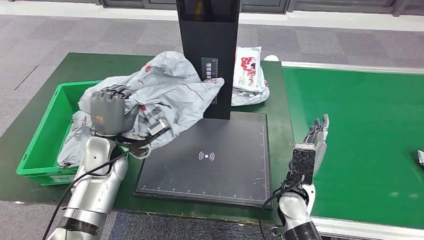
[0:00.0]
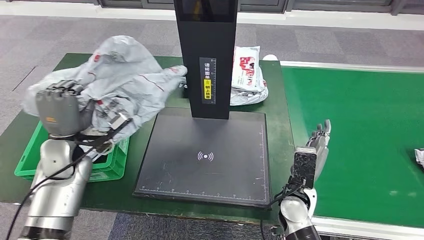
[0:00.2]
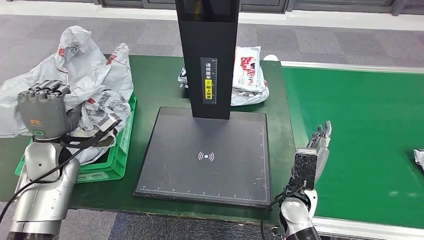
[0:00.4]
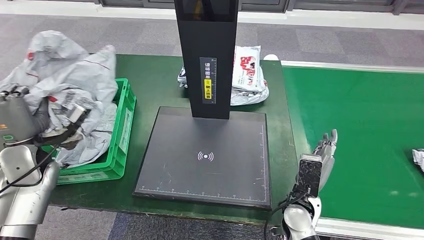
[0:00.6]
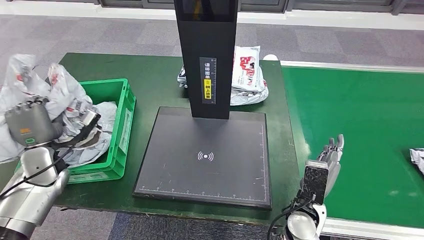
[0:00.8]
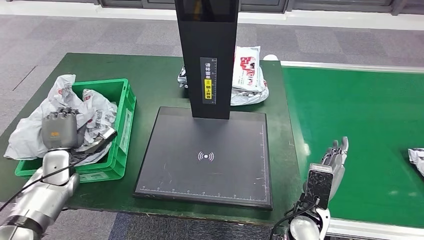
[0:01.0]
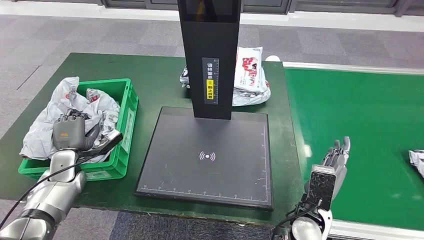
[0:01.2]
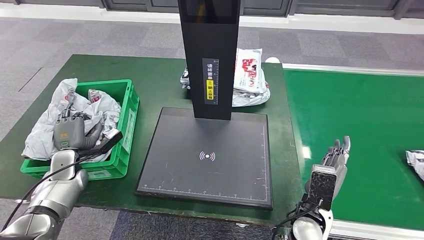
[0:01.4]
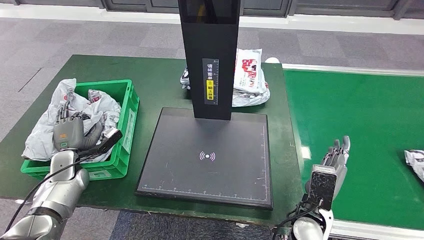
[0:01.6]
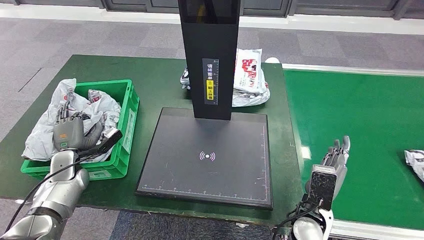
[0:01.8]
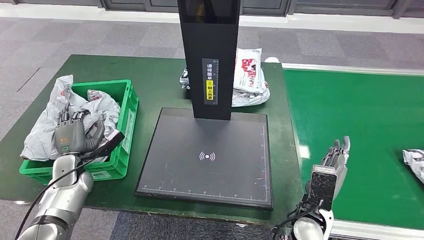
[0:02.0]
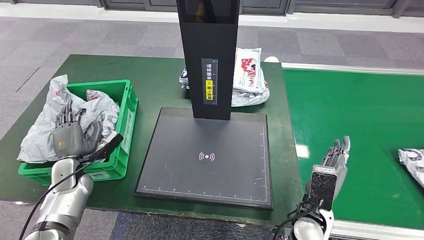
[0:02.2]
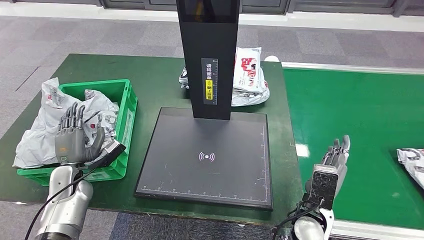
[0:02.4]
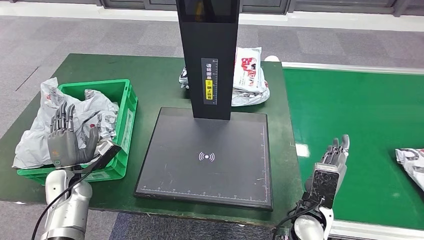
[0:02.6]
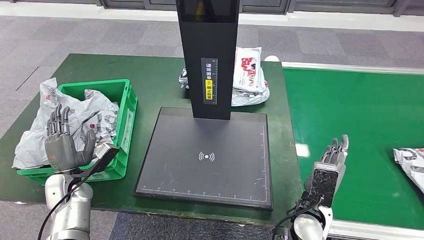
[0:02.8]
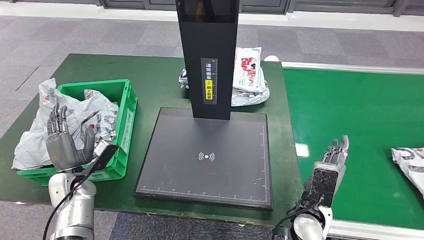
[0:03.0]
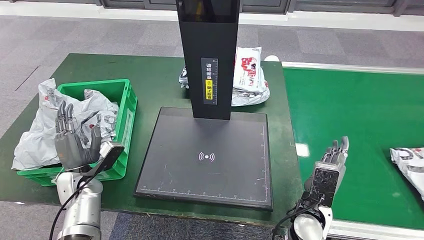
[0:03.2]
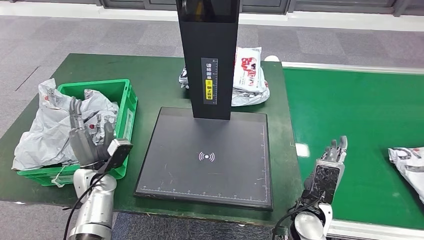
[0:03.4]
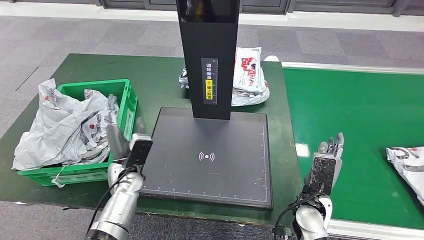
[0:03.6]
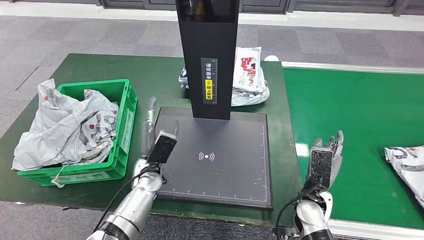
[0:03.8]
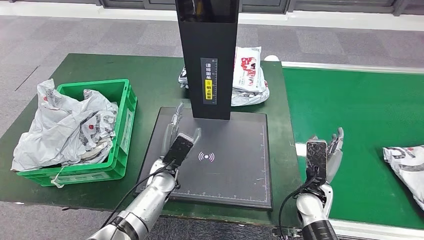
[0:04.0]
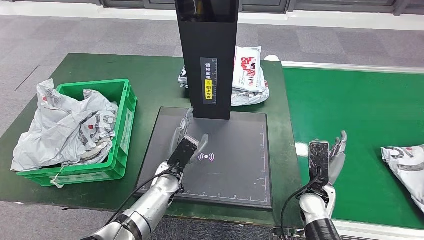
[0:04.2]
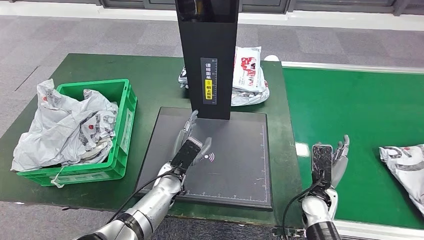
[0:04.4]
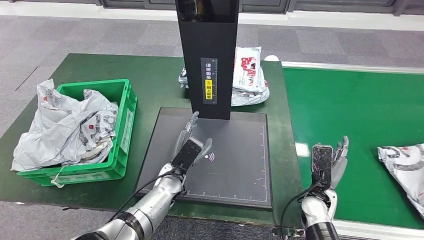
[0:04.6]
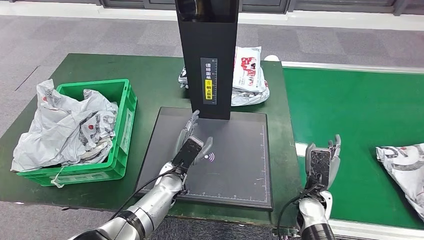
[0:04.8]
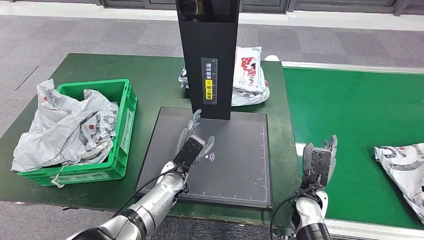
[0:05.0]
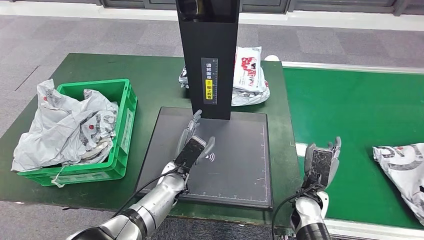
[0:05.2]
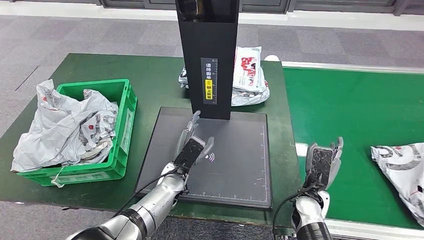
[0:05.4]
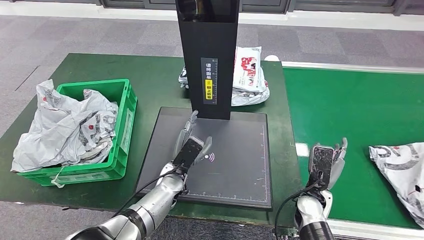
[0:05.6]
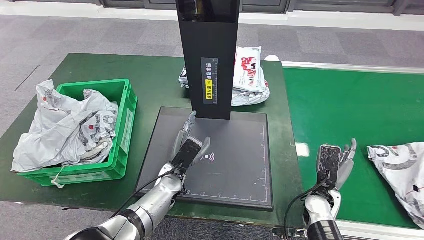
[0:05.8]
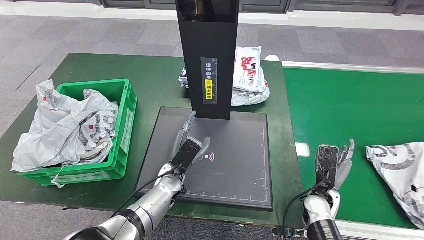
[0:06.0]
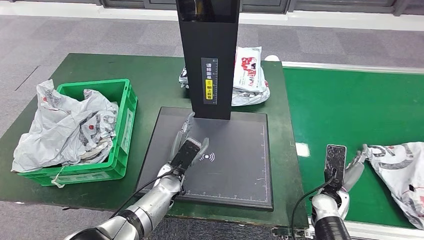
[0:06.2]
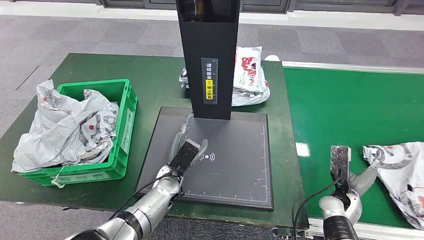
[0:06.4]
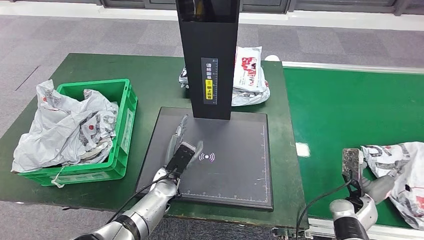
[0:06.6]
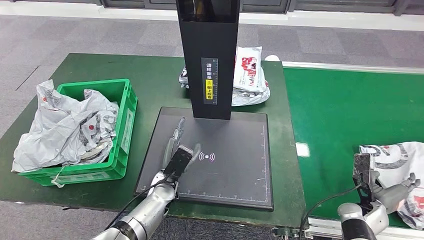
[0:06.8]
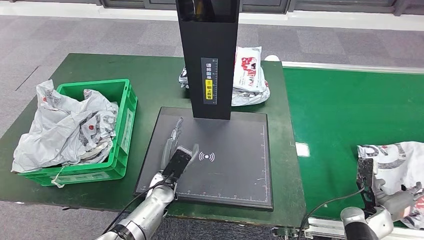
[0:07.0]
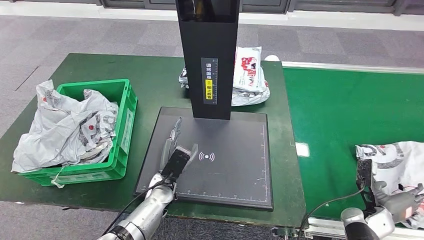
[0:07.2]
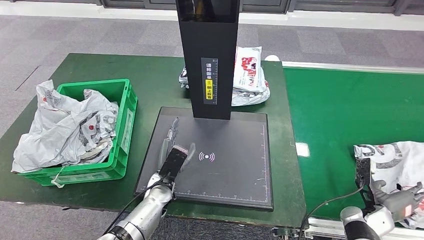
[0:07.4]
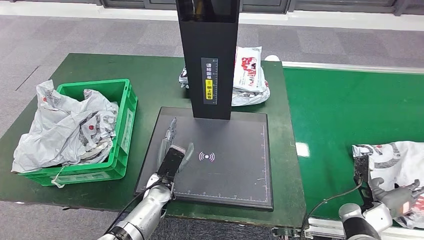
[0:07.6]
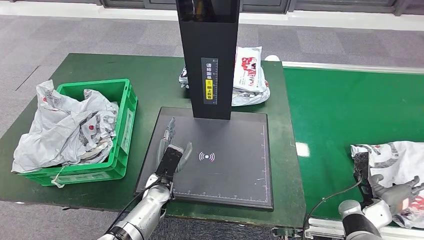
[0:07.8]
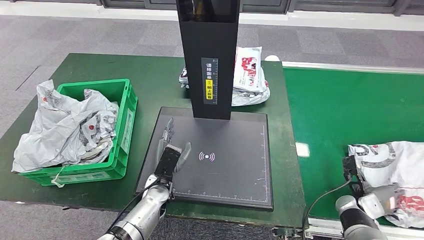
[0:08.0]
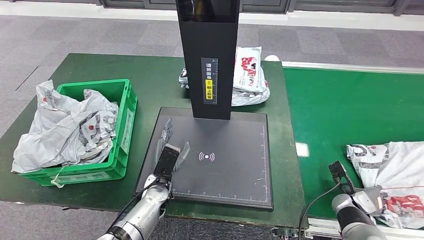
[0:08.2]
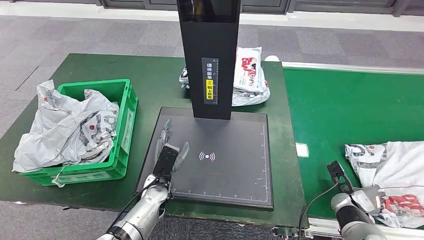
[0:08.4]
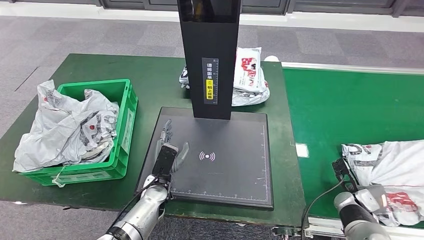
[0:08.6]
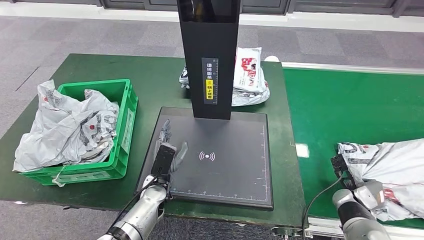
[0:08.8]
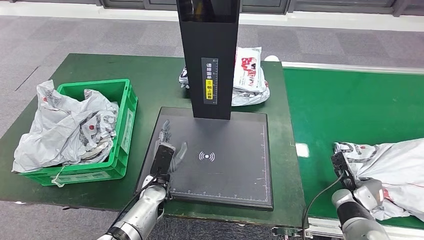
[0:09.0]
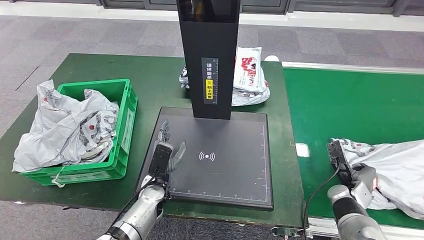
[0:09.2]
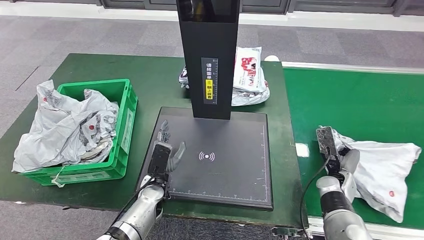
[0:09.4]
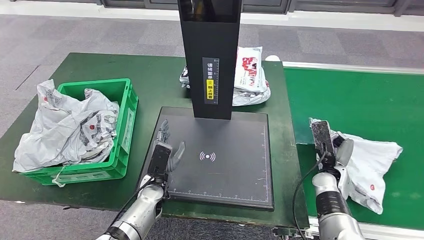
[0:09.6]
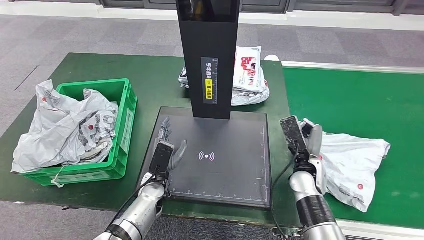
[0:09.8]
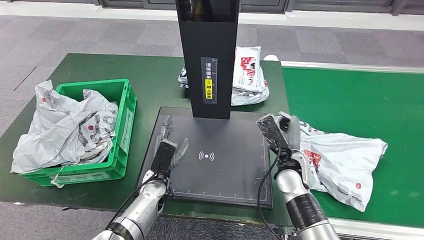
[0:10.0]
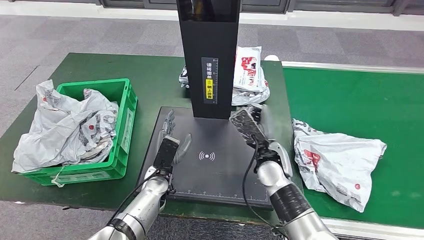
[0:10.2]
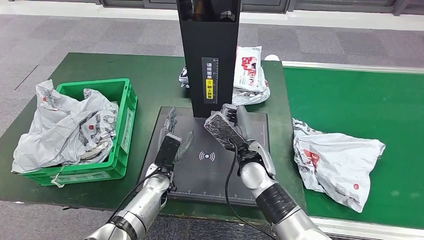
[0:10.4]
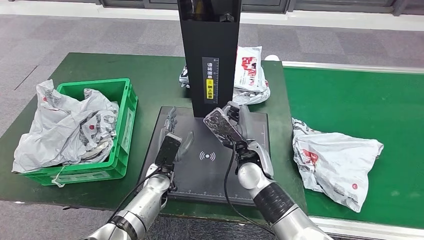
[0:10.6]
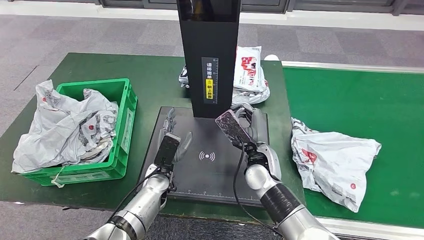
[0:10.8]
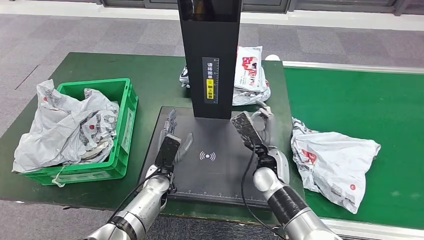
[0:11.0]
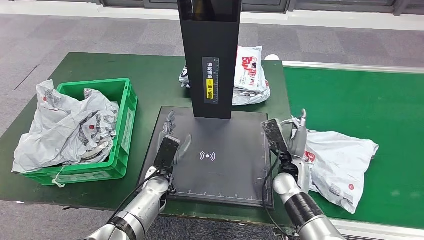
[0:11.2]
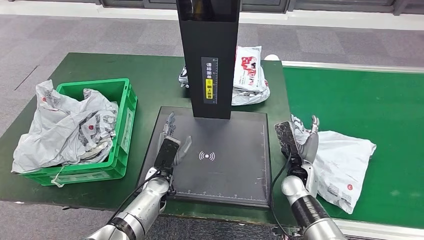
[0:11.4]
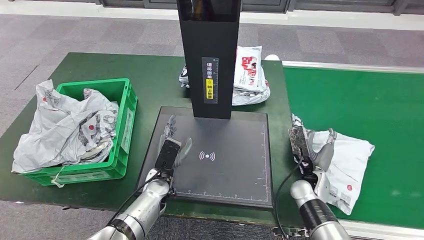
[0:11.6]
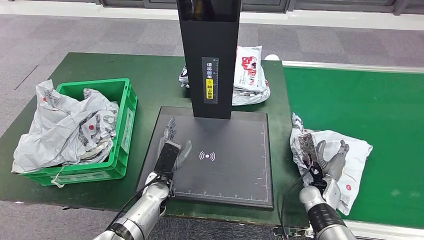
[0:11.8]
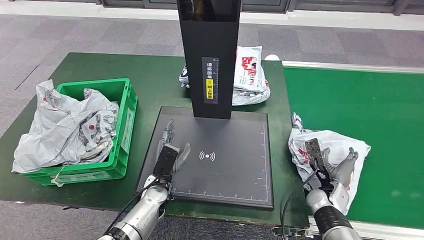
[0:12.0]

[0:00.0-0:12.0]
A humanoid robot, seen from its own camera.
Step, 0:00.0 to 0:02.2: Place the parcel into the delivery box.
0:03.0 to 0:04.4: The left hand moves to the right, roughly 30 cm; the right hand shifts by approximately 10 cm.
0:04.4 to 0:06.0: There are only small adjustments of the hands.
0:06.0 to 0:07.6: The right hand shifts roughly 15 cm to the right.
0:10.4 to 0:12.0: The right hand moves to the right and downward, approximately 25 cm.

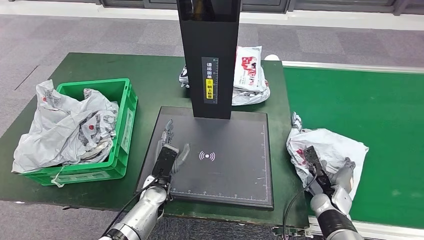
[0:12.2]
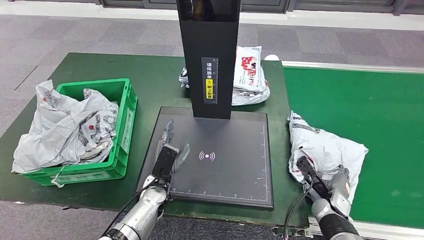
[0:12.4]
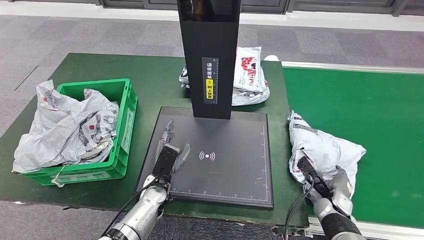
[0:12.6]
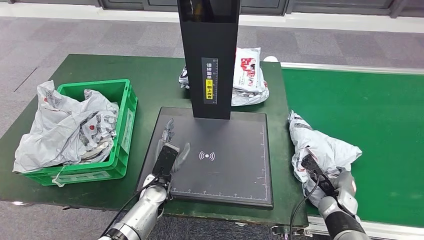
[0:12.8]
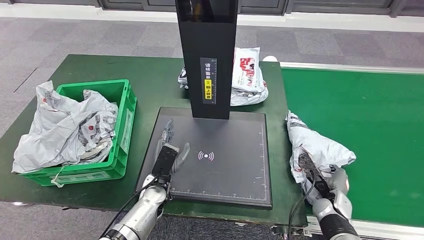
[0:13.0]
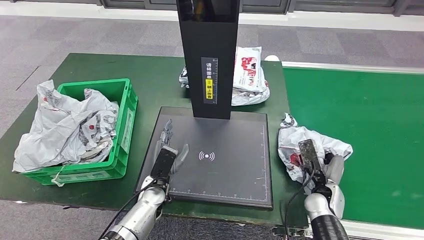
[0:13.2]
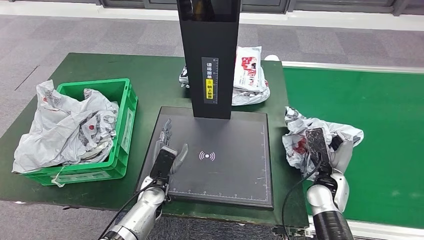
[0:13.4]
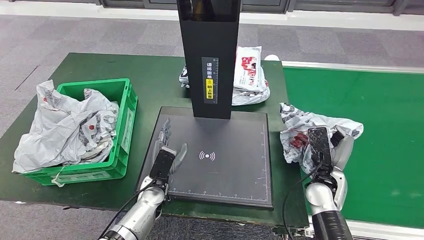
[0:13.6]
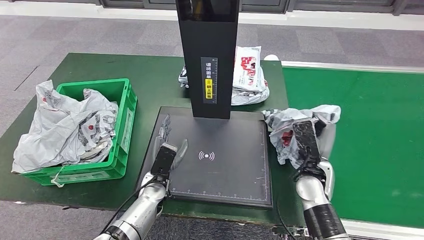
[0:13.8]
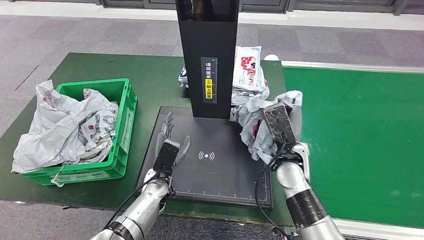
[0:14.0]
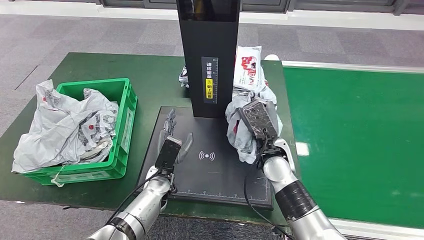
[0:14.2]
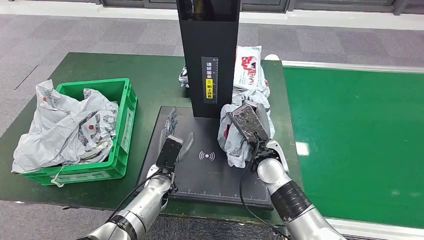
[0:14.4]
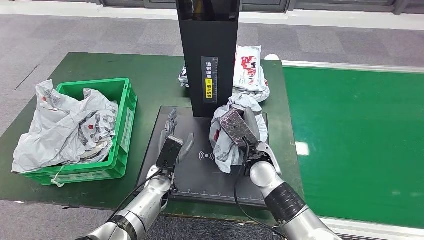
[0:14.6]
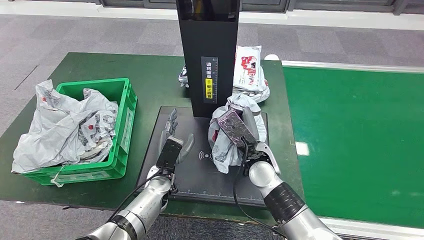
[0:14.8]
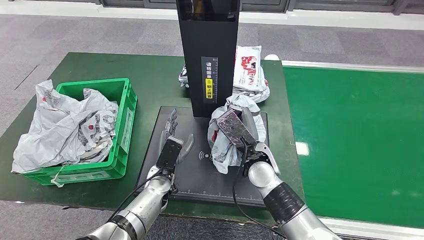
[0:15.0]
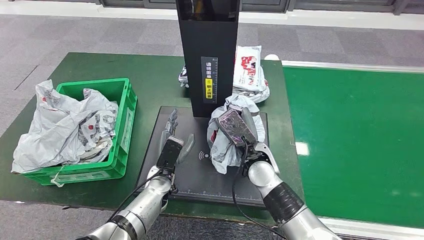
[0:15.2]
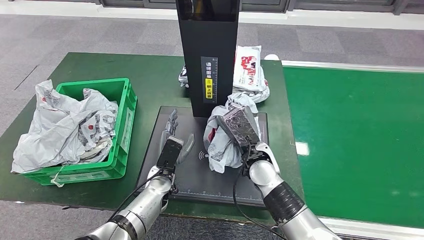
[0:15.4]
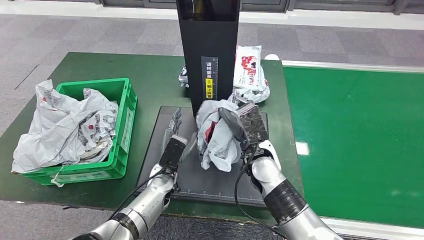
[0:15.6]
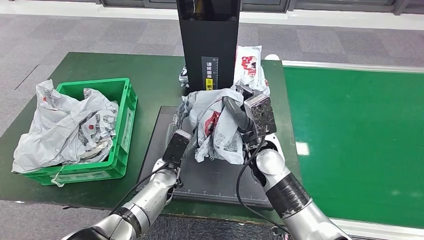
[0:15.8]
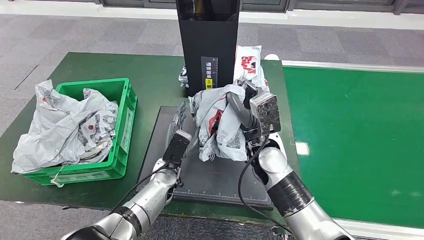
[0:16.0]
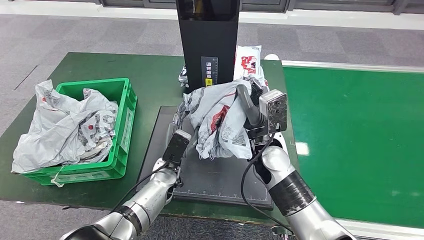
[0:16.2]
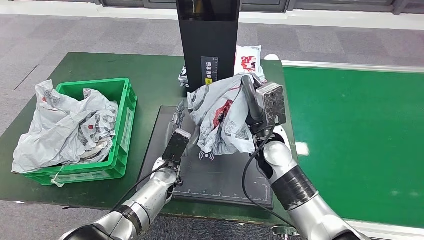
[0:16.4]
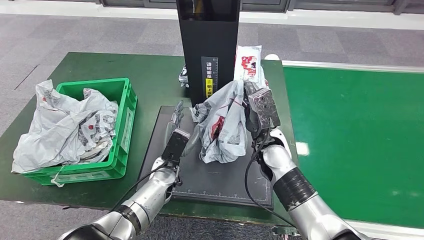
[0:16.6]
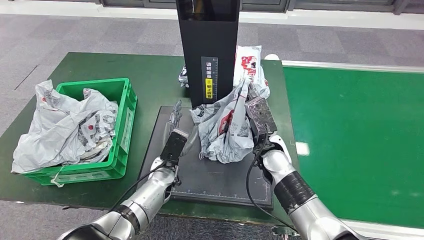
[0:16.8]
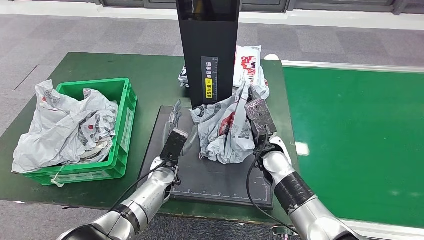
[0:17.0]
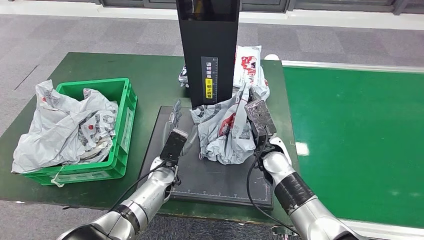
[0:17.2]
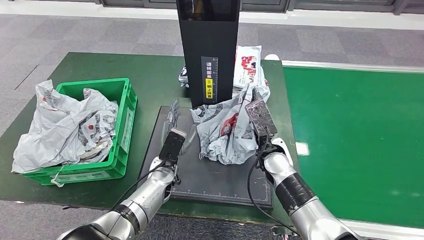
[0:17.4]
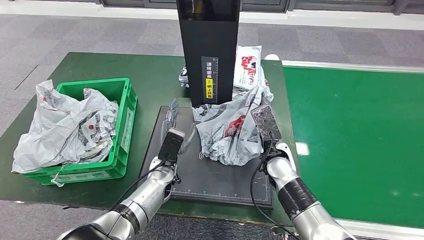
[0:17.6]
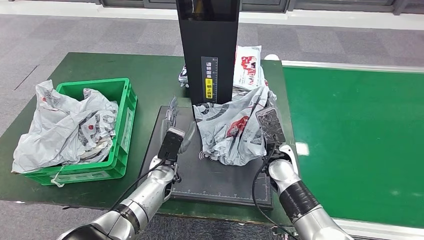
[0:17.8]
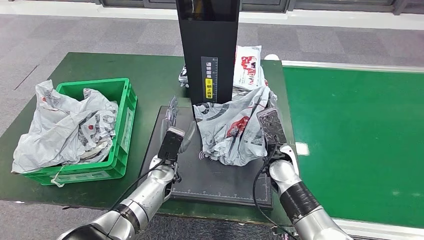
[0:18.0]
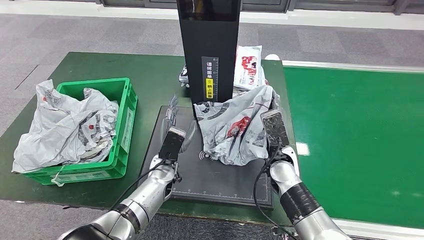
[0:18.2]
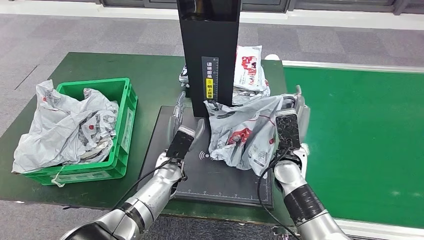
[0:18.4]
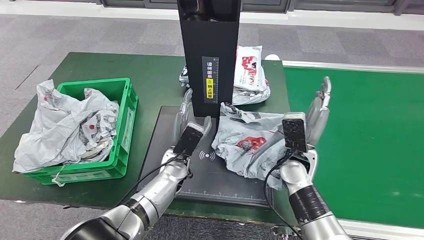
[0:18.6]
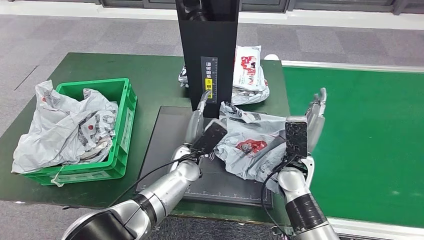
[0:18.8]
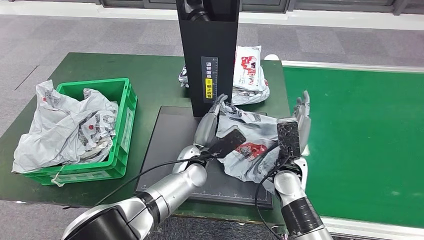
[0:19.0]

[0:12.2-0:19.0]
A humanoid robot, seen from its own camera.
Step, 0:12.2 to 0:14.6: Pick up the parcel from the conveyor belt.
0:12.2 to 0:13.6: The right hand moves upward and to the left, roughly 10 cm.
0:13.6 to 0:15.0: The right hand shifts roughly 15 cm to the left.
0:16.2 to 0:17.6: The right hand moves downward, some 5 cm.
0:17.6 to 0:19.0: The left hand heads to the right and upward, covering some 10 cm.
